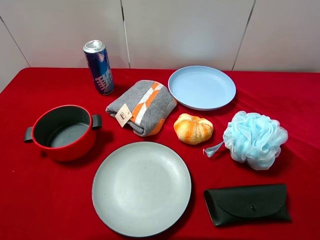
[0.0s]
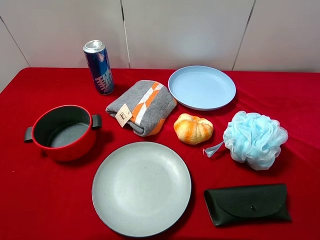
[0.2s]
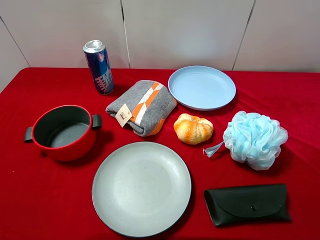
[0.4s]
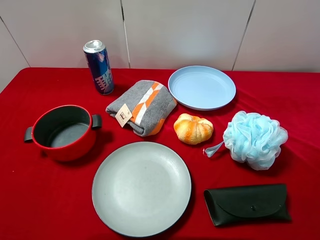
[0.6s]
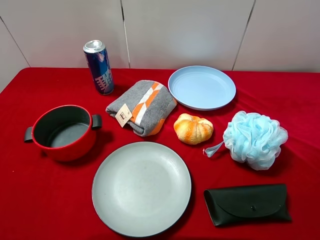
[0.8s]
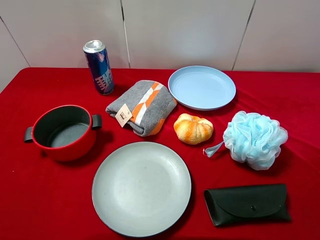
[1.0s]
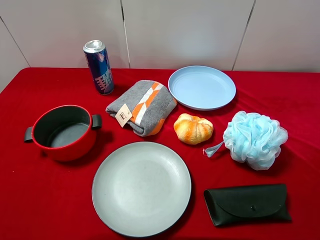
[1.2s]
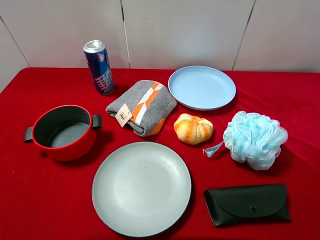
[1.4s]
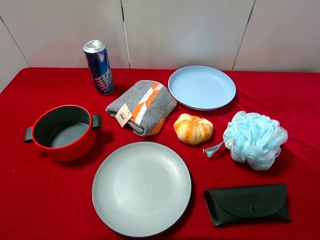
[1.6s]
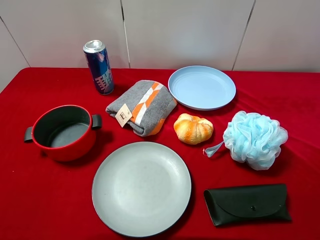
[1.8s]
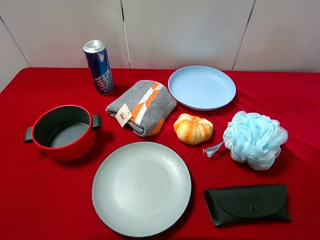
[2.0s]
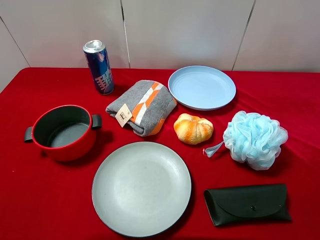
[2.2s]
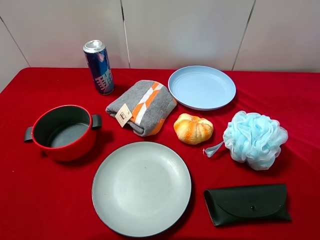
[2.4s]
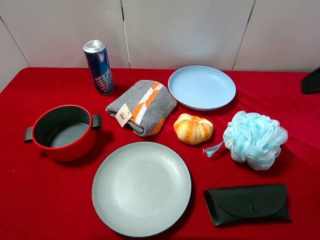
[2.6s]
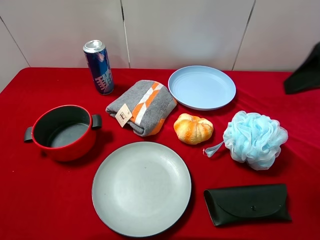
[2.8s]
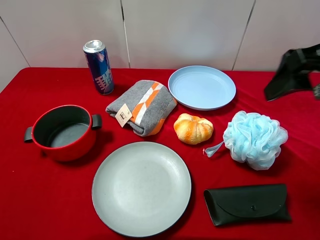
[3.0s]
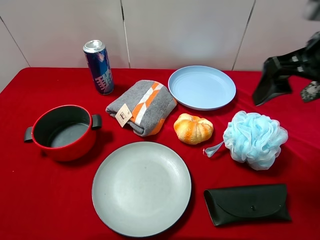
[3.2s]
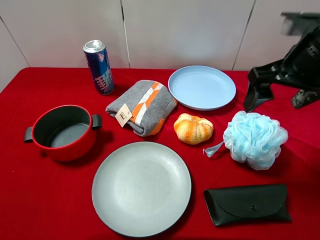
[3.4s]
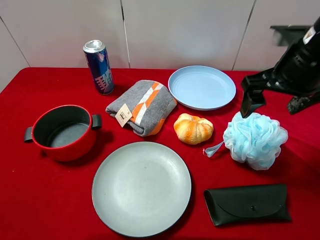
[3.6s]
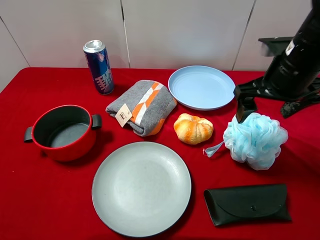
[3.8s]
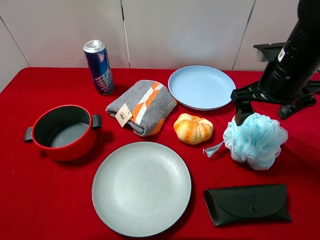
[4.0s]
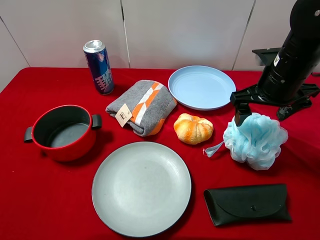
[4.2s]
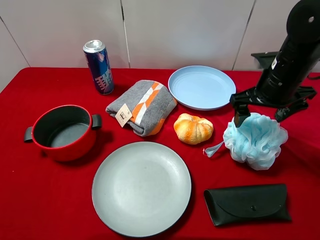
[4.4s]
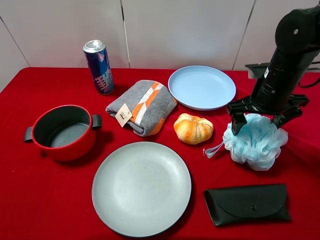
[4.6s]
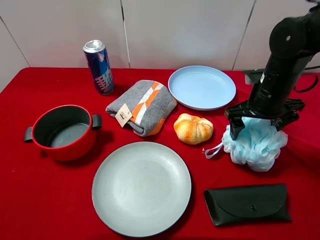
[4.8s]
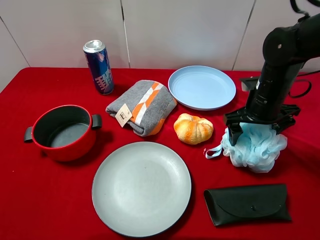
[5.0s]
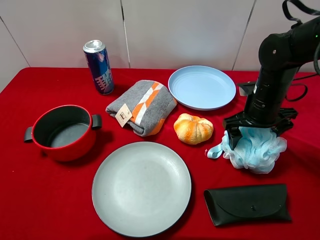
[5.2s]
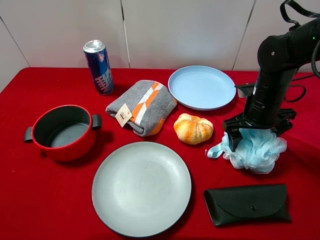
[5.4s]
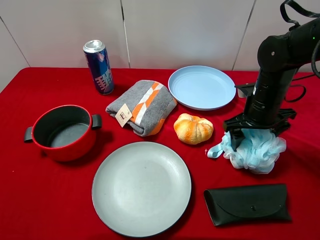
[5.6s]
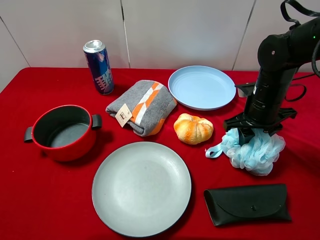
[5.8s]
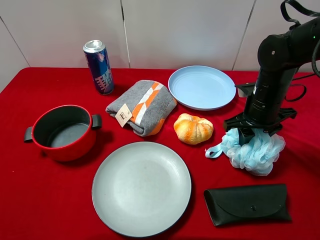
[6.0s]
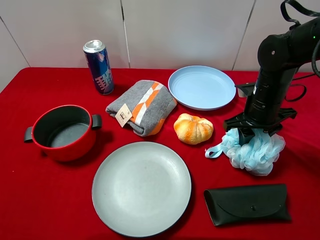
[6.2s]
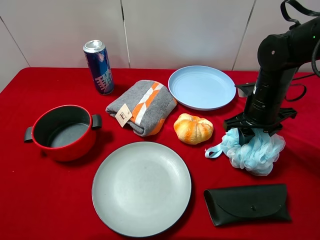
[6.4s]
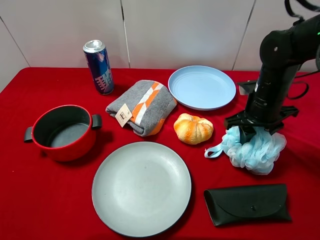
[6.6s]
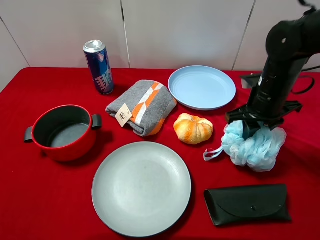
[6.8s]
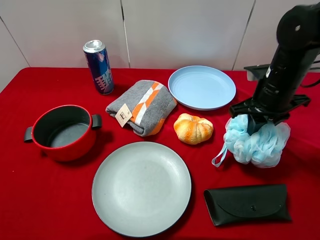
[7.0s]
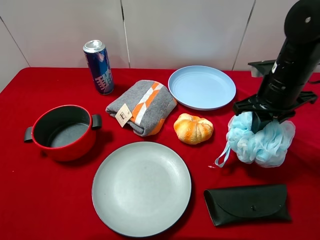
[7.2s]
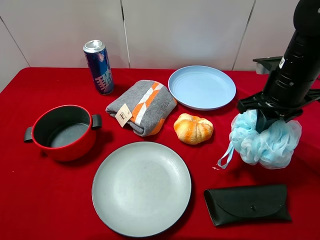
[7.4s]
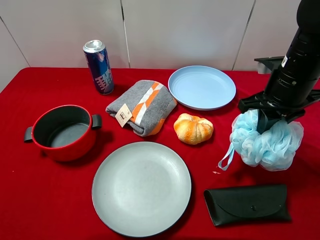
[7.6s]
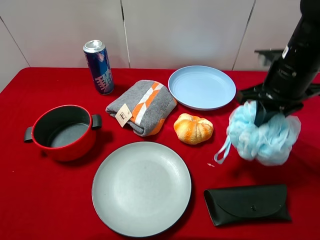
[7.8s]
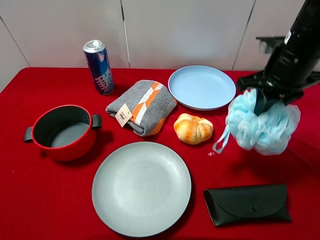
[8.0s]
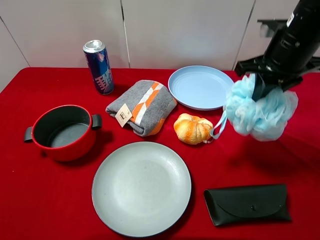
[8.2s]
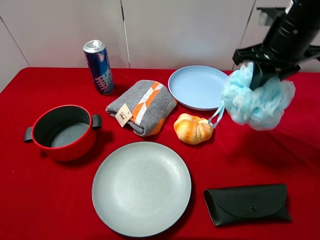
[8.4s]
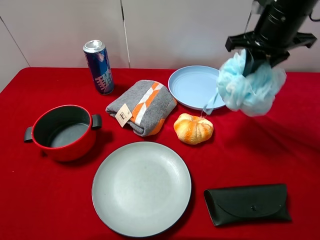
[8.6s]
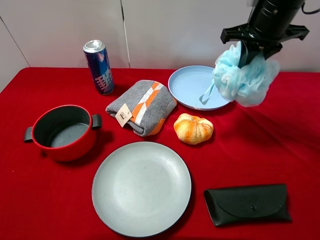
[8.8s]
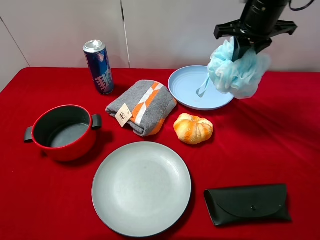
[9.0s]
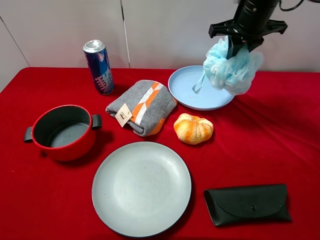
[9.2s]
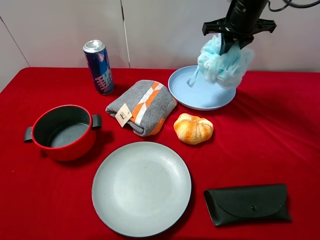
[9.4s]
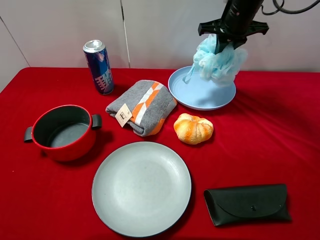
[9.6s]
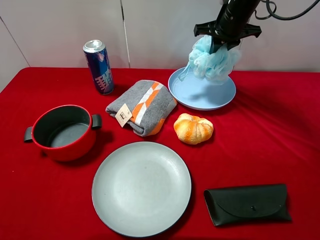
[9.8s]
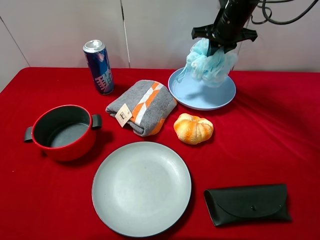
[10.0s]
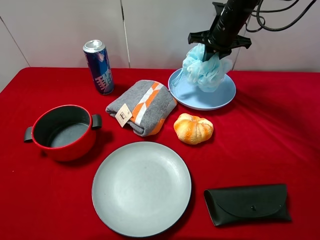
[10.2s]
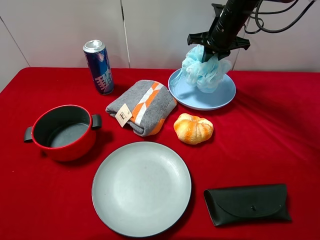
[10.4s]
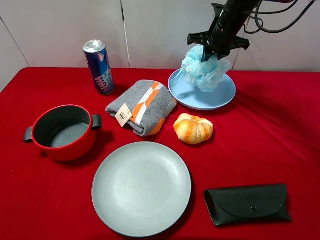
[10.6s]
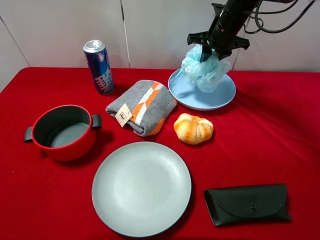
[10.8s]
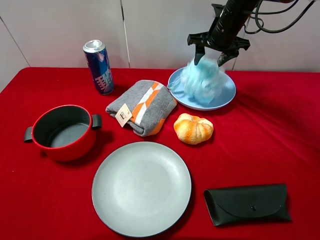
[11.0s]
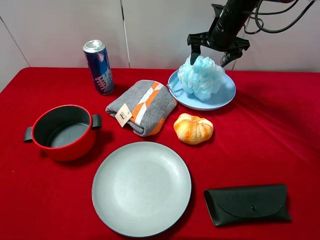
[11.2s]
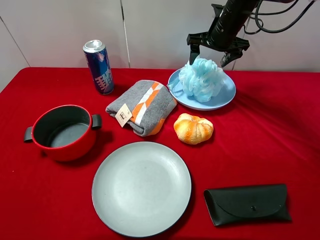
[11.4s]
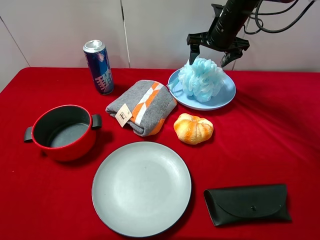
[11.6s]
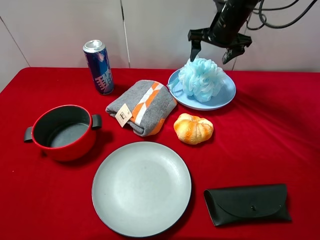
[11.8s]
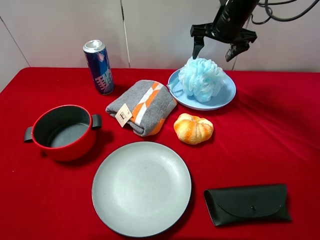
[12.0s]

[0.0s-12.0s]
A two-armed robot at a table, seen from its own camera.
Task of the whole recording: pick up an item with a gripper and place it in a random container on the desktop.
1.6s to 3.0s: The right gripper travels forward by about 15 cm.
3.0s to 4.4s: The right gripper travels downward and forward by some 15 cm.
4.4s to 6.0s: The right gripper is displaced downward by roughly 5 cm, and closes its fingers.
6.0s to 7.6s: The right gripper heads upward, covering some 10 cm.
7.6s to 9.0s: The right gripper travels forward and upward by roughly 15 cm.
9.0s to 10.4s: The right gripper shifts roughly 10 cm forward and downward.
10.4s to 12.0s: The right gripper opens up.

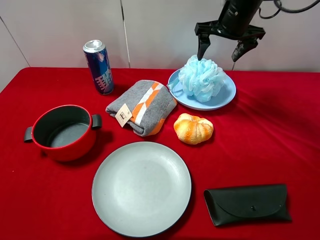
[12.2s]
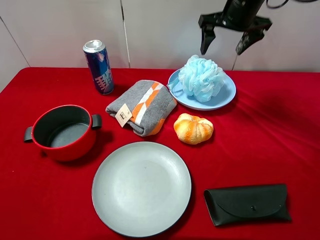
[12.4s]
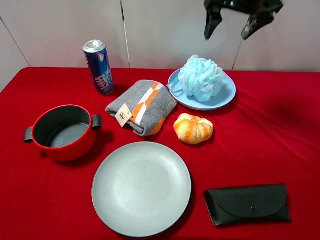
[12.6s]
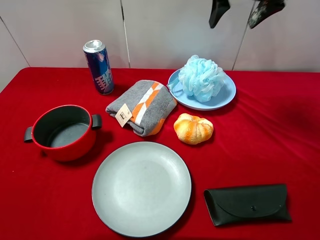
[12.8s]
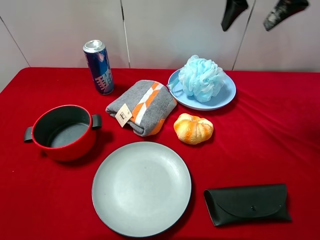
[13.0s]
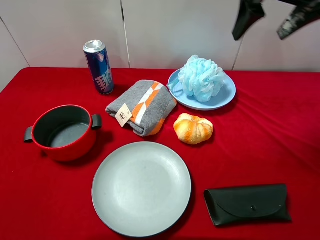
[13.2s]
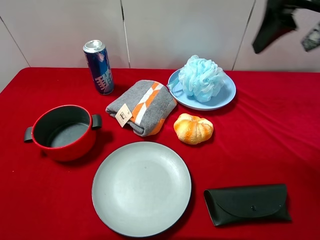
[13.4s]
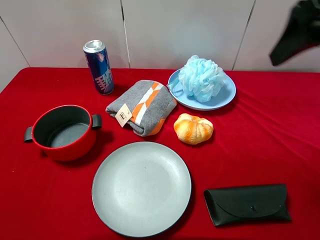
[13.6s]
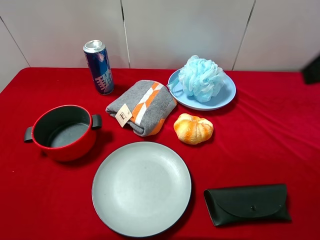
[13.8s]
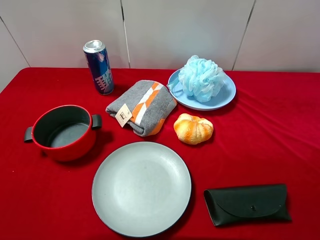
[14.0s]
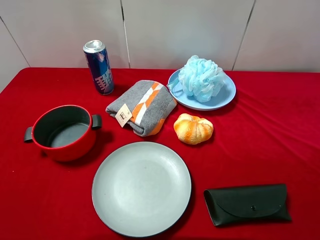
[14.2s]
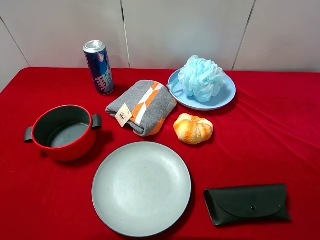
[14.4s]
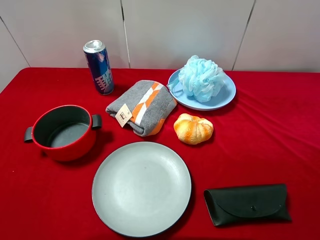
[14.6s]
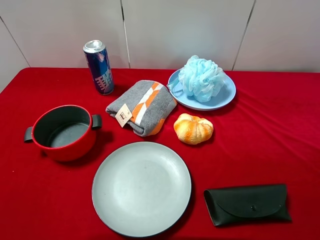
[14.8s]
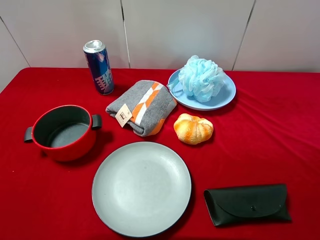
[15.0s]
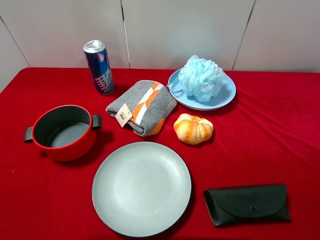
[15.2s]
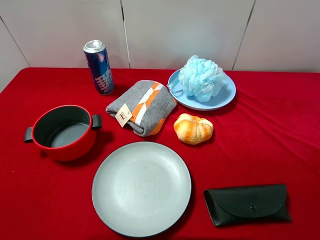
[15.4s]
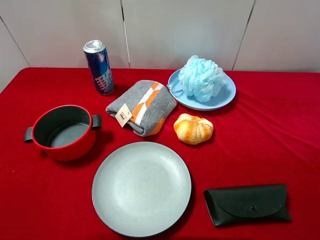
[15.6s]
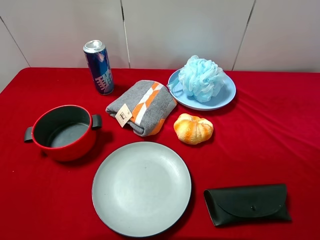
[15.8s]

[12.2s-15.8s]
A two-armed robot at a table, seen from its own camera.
Task of the whole recording: pick up an item with a gripper and place it in a random container on the desktop.
12.2s to 14.0s: The right gripper travels backward by roughly 35 cm.
